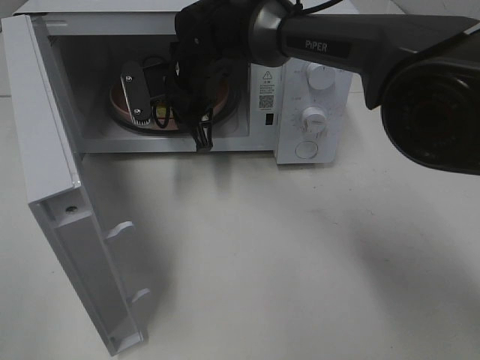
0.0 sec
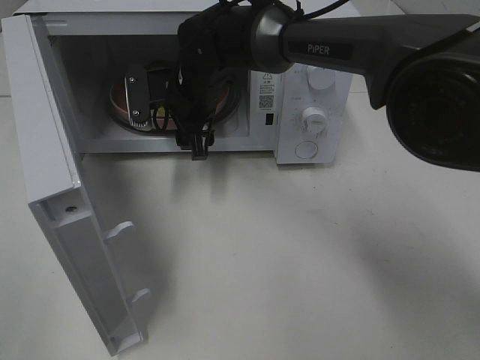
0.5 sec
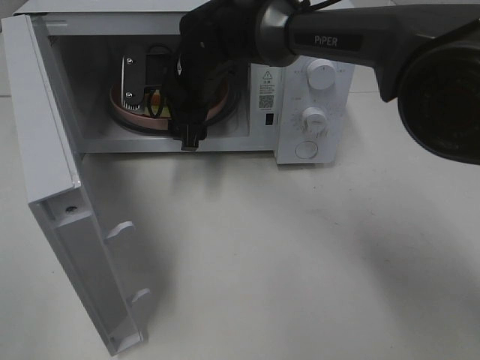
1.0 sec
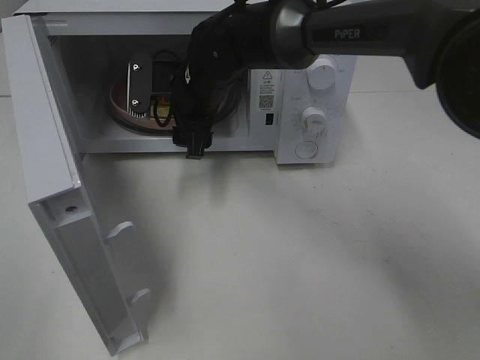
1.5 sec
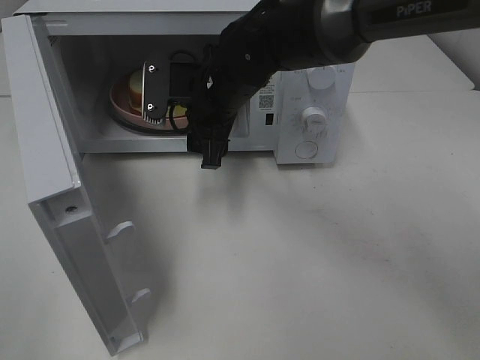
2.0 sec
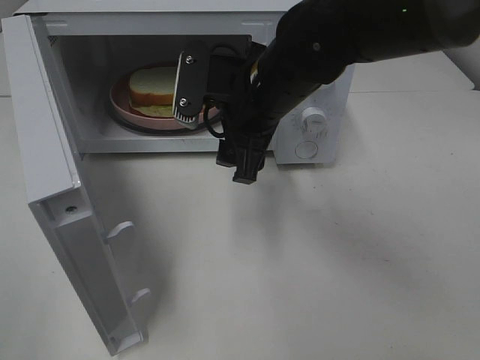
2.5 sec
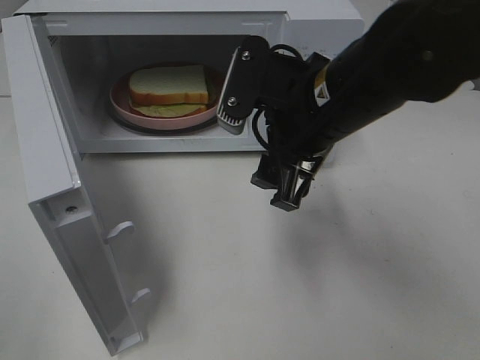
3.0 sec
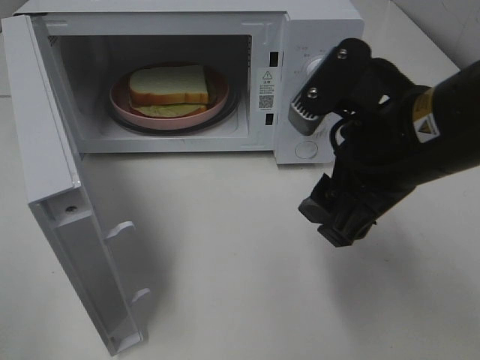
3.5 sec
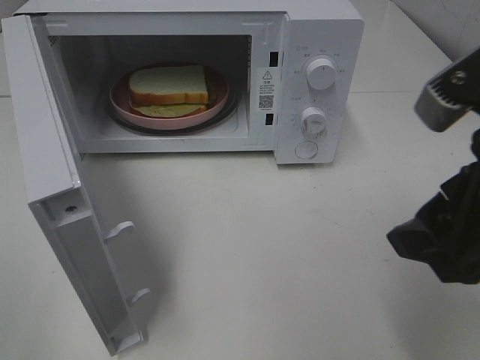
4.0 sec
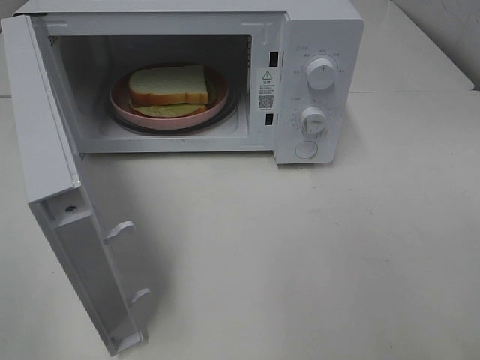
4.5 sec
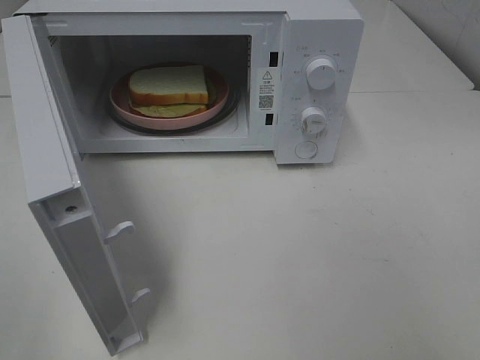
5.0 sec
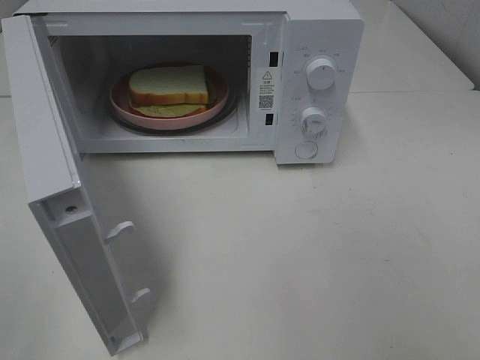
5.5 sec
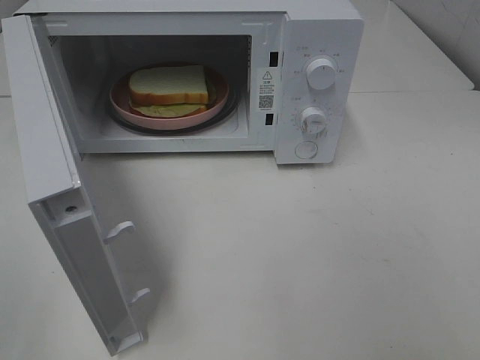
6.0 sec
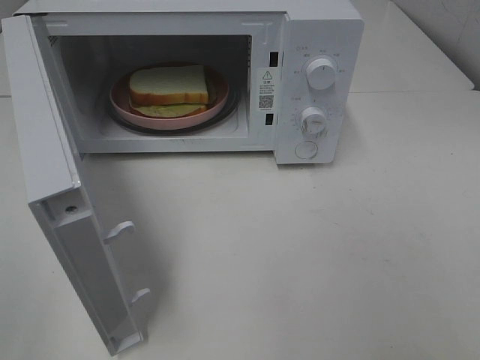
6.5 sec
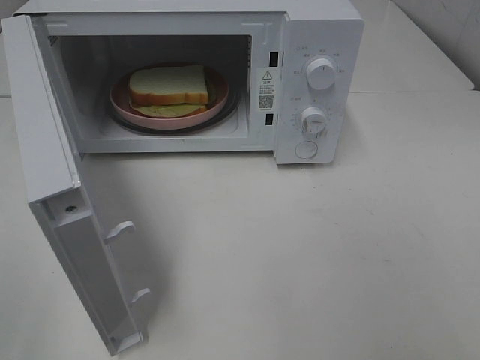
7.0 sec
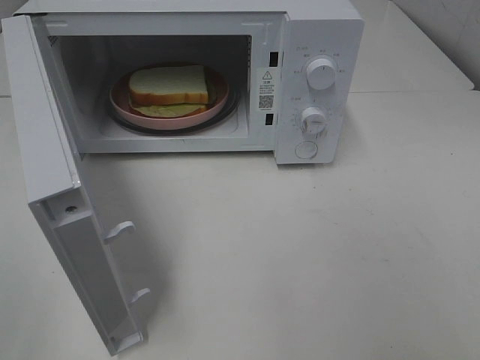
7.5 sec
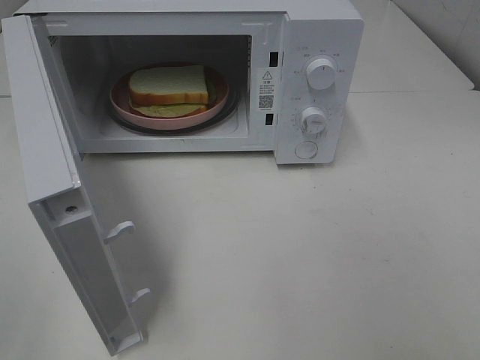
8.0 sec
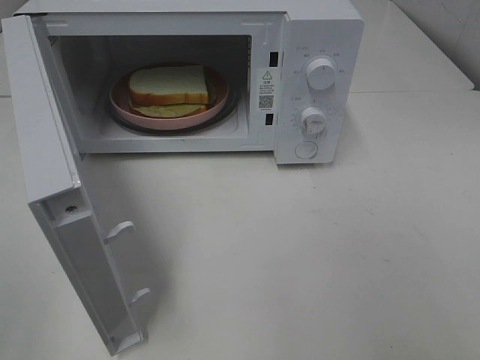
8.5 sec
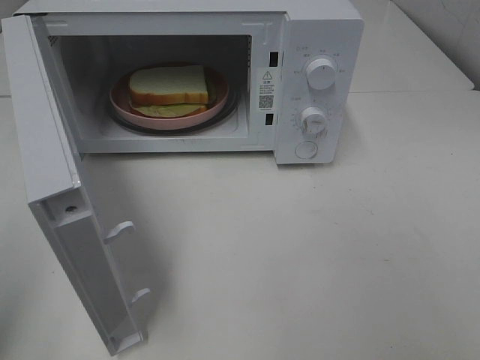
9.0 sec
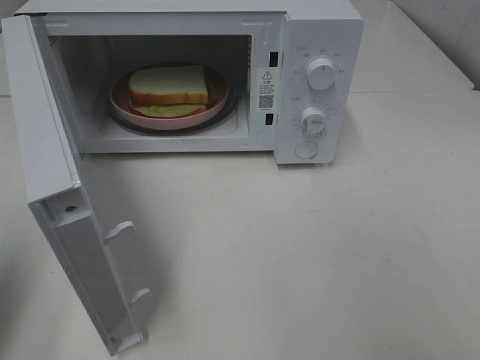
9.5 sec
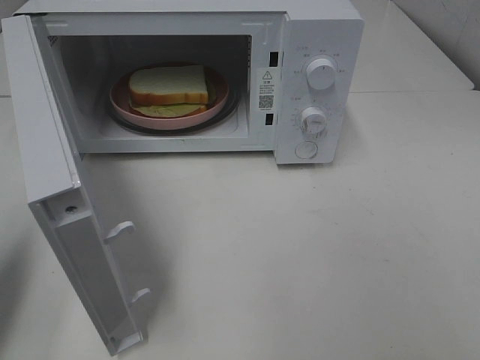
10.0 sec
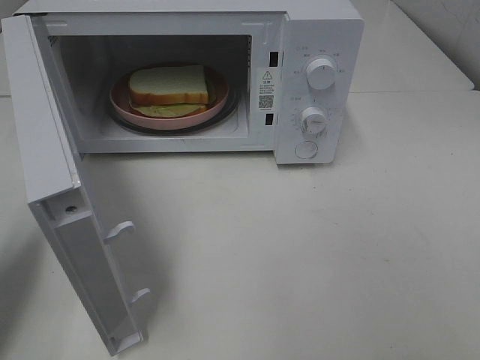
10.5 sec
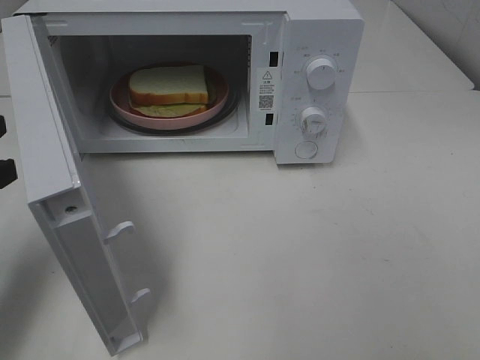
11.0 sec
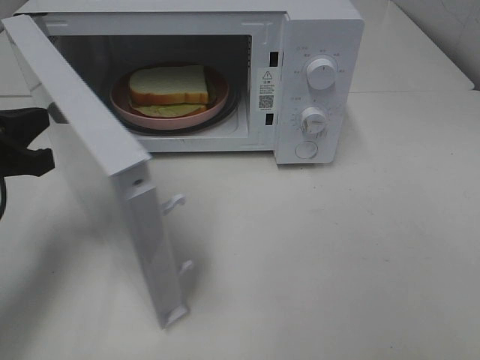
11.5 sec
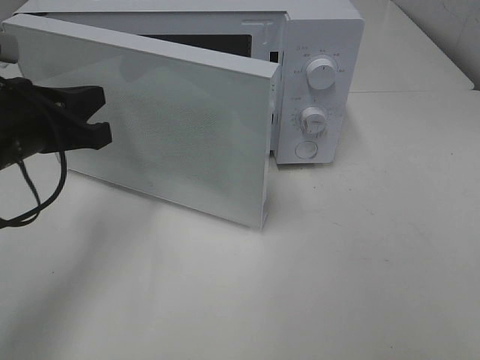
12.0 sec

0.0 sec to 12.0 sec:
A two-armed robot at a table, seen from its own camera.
Task of the whole recording: Heat Sandwich.
0.0 sec to 2.0 sec: The right gripper goes approximately 5 cm backward, and opens up.
2.0 sec to 4.0 sec: The right gripper goes roughly 30 cm backward and to the right.
4.0 sec to 6.0 sec: The right gripper goes about 15 cm backward and to the right.
6.0 sec to 8.0 sec: Neither gripper changes place.
8.0 sec to 10.0 sec: The left gripper heads forward, covering about 15 cm, and closes its fingers.
10.0 sec to 12.0 sec: The left gripper shifts roughly 15 cm to the right and forward.

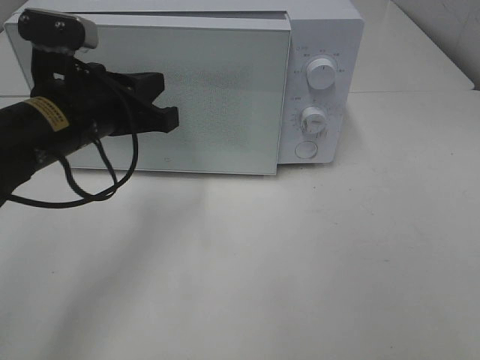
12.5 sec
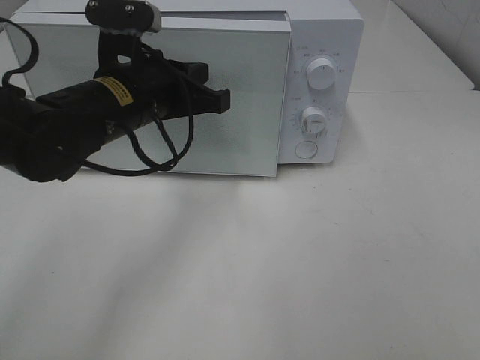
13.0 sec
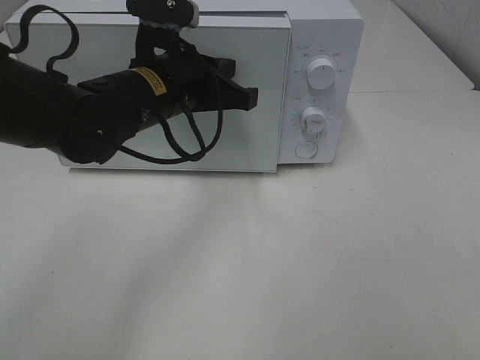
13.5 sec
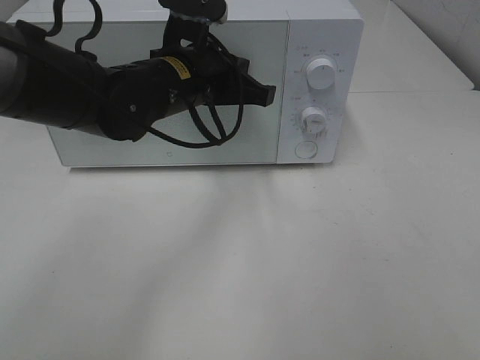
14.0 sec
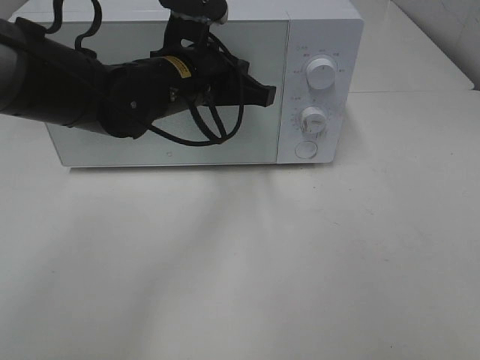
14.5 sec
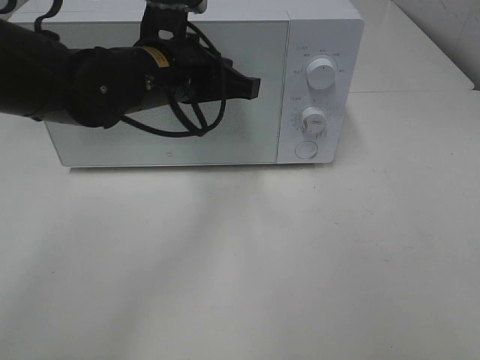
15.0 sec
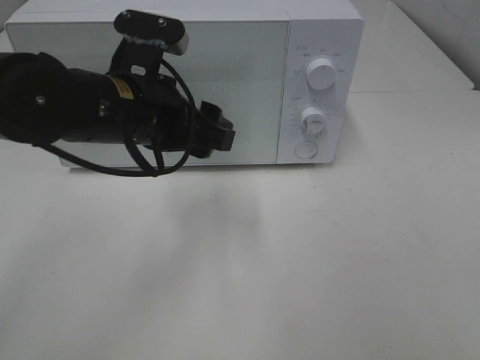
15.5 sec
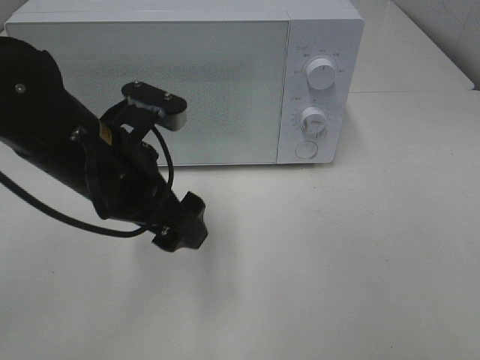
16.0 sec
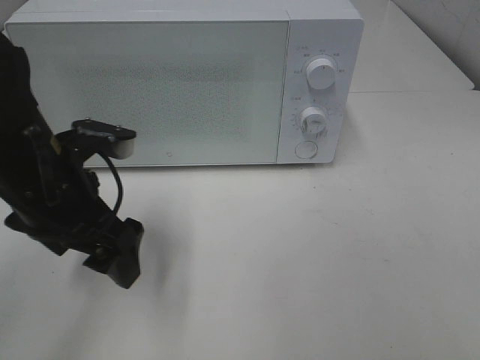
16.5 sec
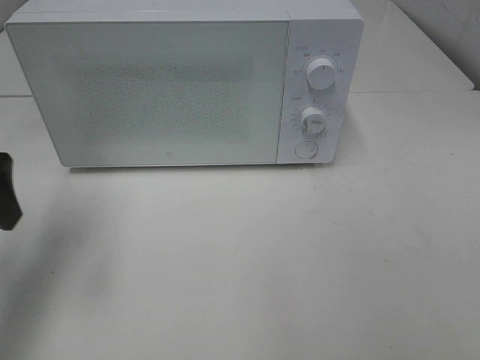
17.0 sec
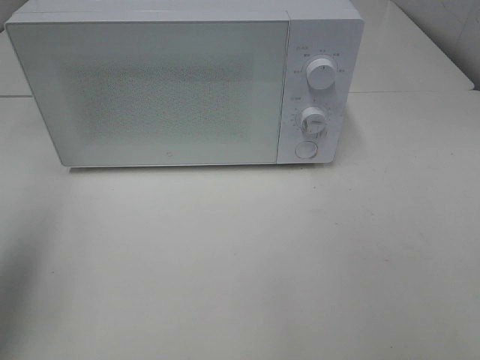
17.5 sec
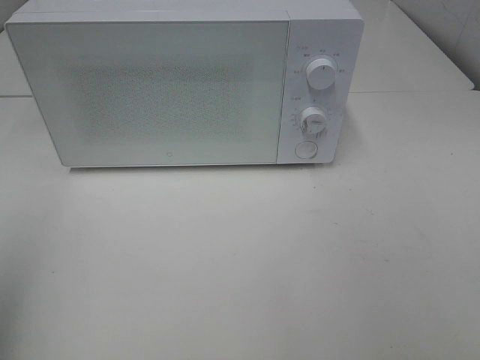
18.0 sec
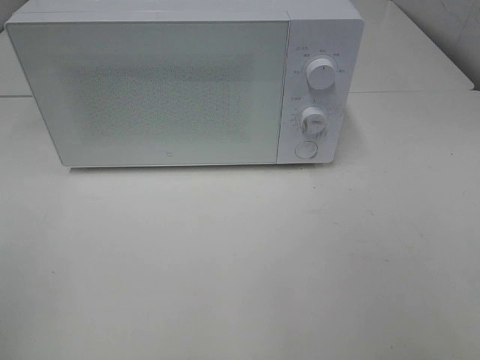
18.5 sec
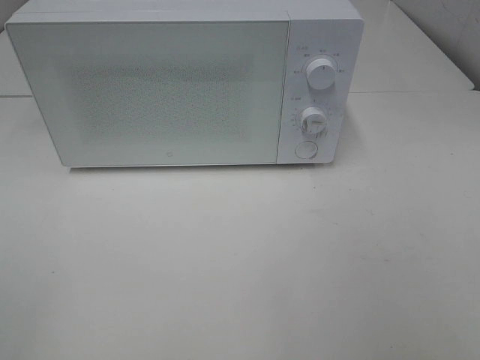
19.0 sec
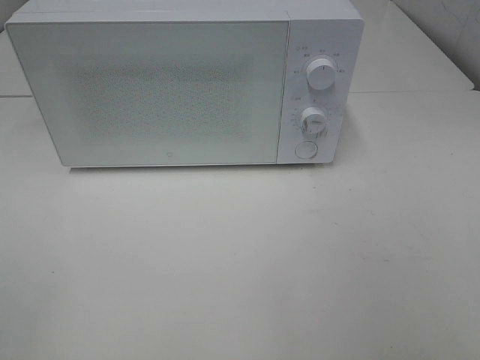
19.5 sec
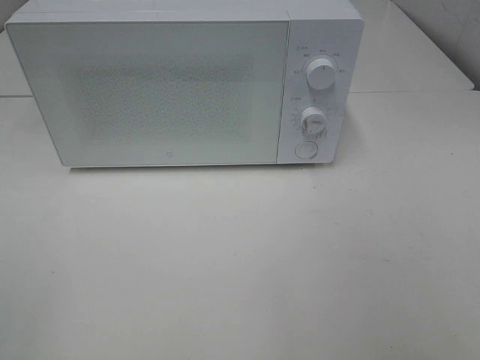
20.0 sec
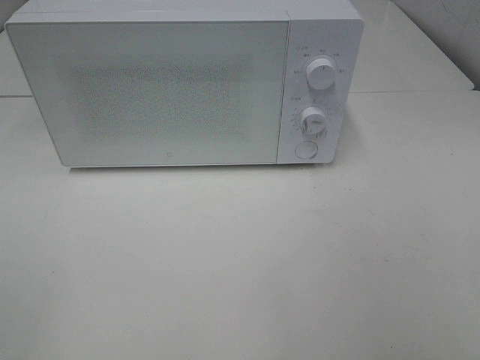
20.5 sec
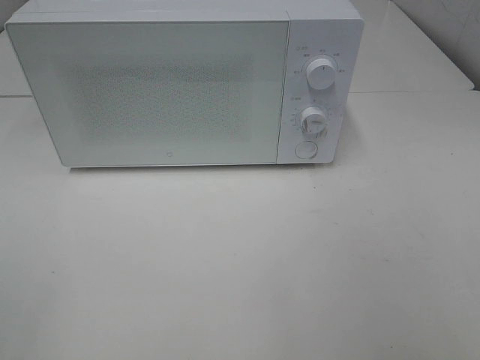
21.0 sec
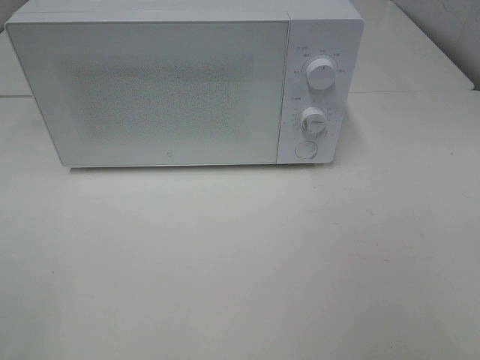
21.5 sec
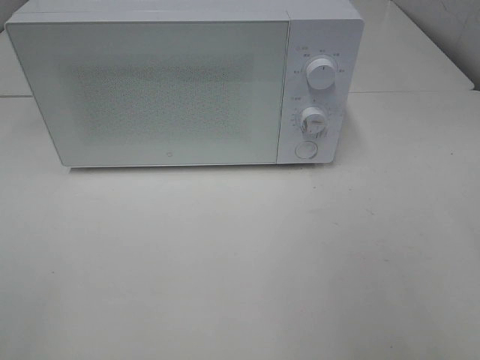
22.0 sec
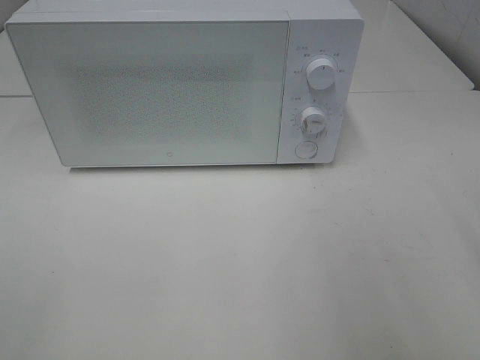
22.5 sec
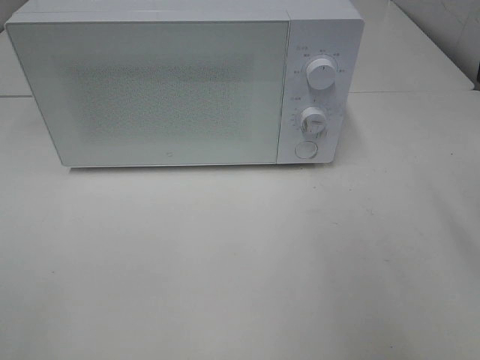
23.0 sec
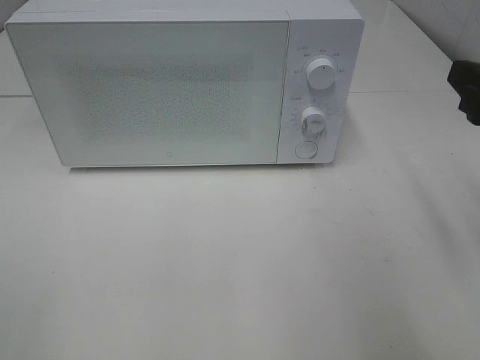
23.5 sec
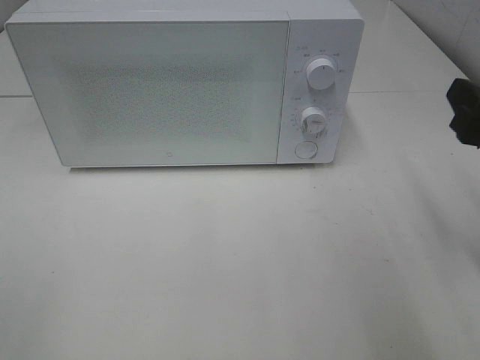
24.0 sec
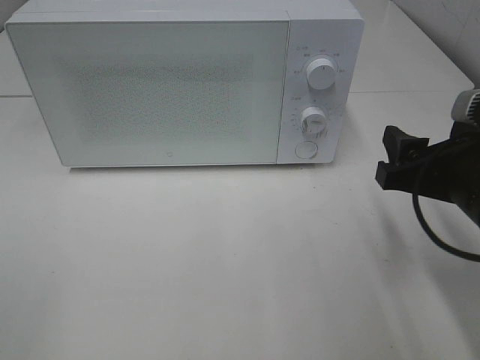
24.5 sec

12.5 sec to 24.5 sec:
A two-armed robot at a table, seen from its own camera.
Task of the whole recording: Heat Sandwich.
Step, 12.5 sec to 14.5 sec: Left hand: close the microwave door.
12.5 sec to 14.5 sec: The left gripper travels to the right and forward by some 10 cm.
14.5 sec to 16.5 sec: The left gripper moves to the left and backward, approximately 15 cm, and opens.
16.5 sec to 18.5 sec: The left gripper goes about 30 cm backward, to the left and upward.
22.5 sec to 24.5 sec: The right gripper goes some 15 cm downward, forward and to the left.

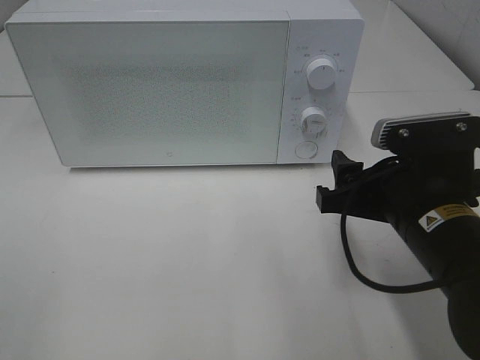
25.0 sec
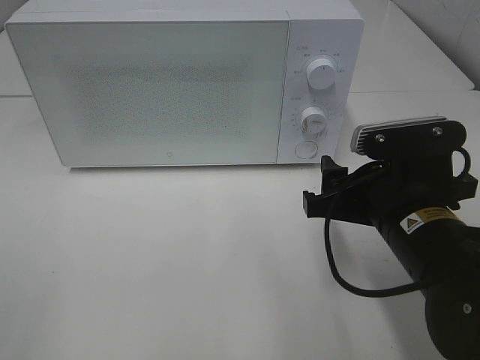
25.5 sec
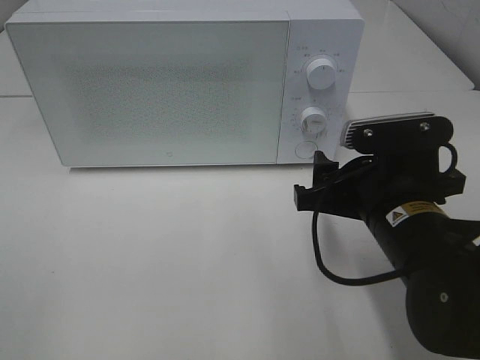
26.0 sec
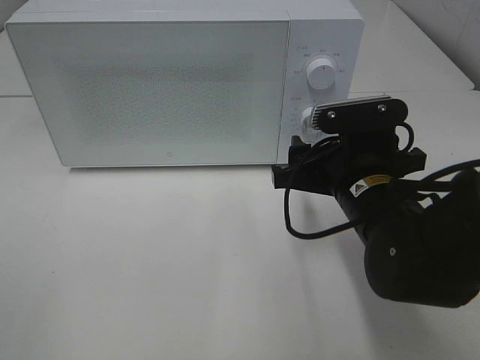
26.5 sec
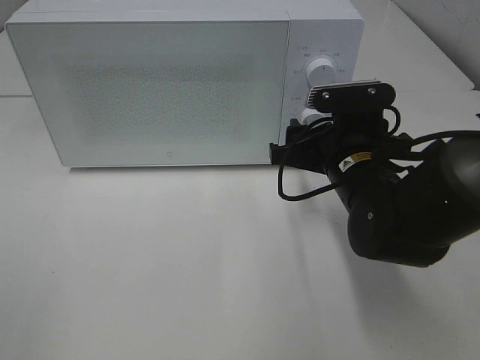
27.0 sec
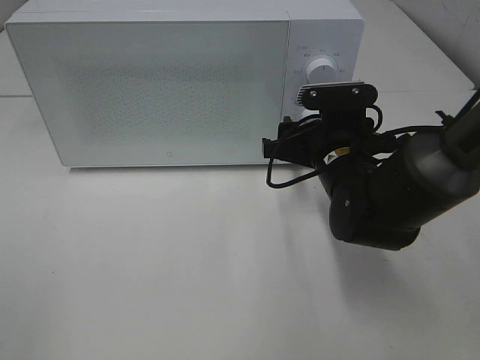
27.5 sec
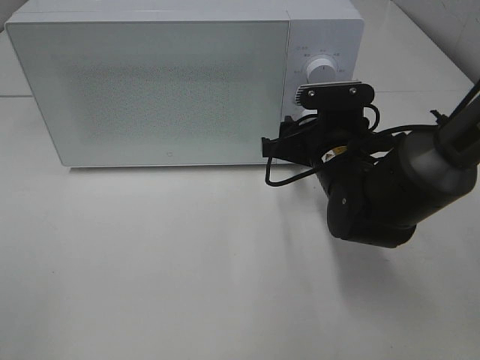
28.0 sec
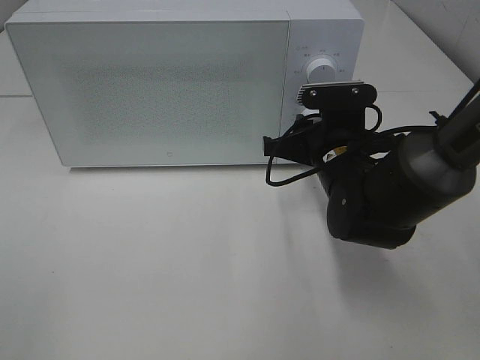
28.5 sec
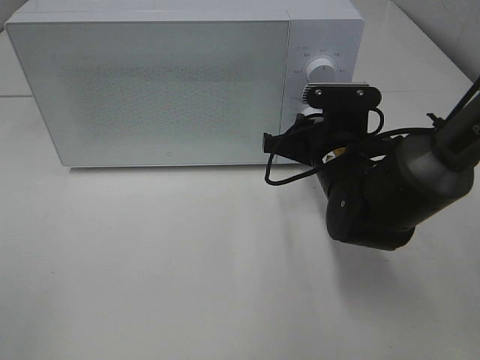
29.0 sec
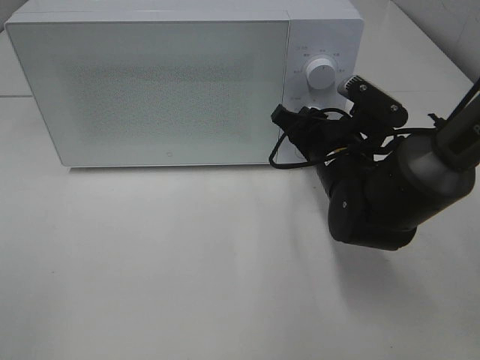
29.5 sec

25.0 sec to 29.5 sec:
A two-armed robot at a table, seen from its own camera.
Task of the whole recording: Heat Sandwich.
25.0 sec to 27.0 sec: The right gripper is displaced forward by about 10 cm.
27.0 sec to 29.5 sec: The right gripper closes.
